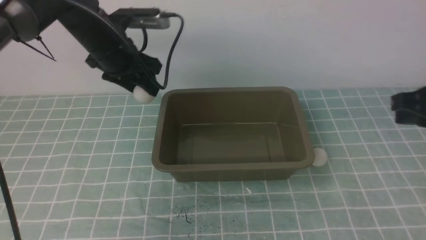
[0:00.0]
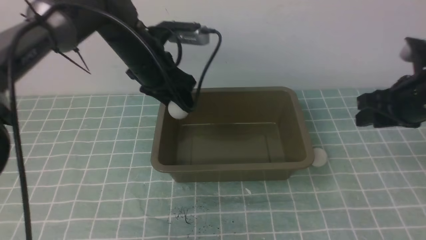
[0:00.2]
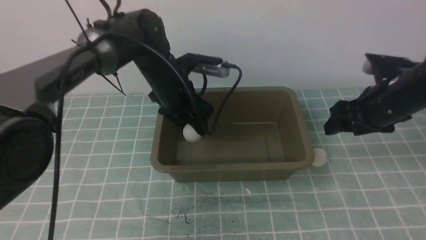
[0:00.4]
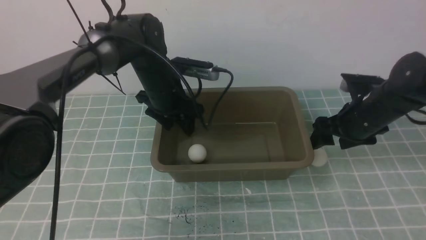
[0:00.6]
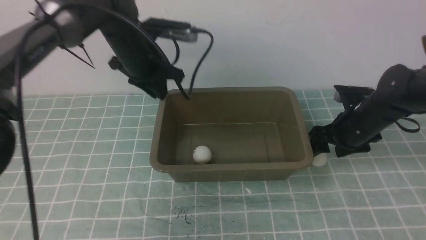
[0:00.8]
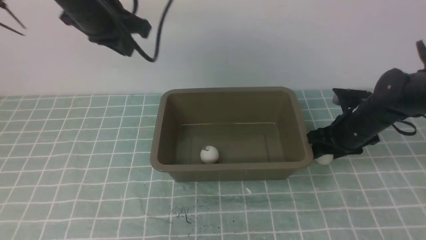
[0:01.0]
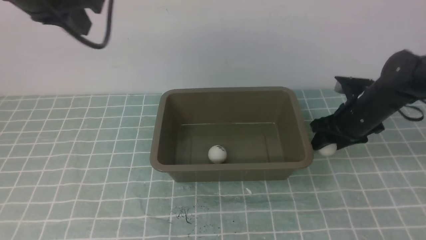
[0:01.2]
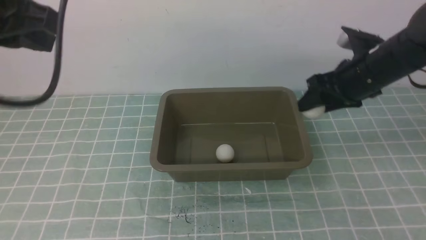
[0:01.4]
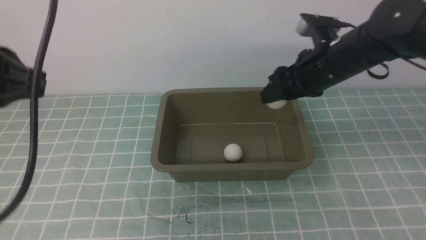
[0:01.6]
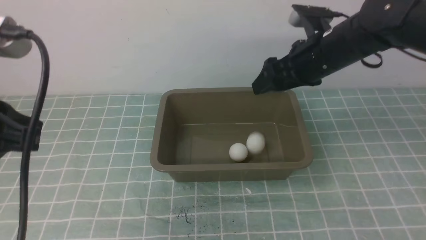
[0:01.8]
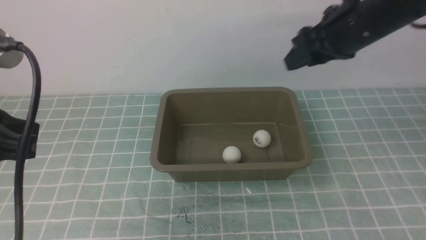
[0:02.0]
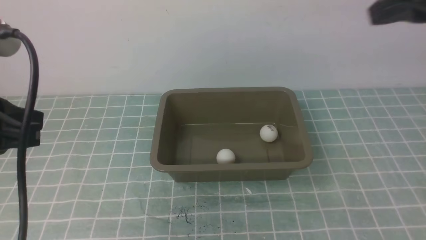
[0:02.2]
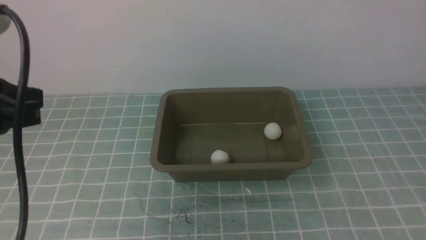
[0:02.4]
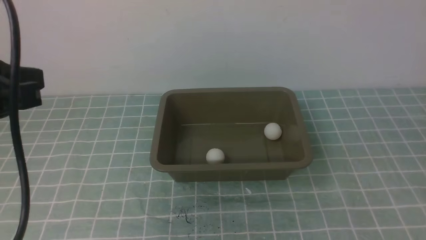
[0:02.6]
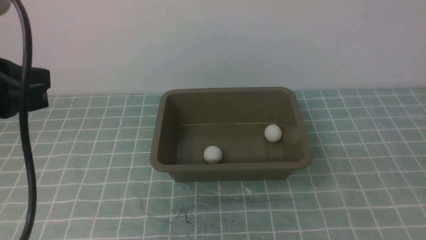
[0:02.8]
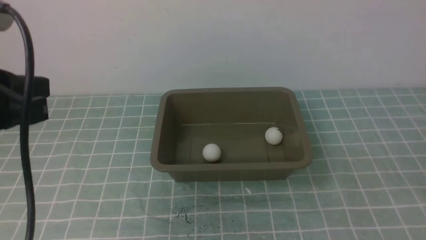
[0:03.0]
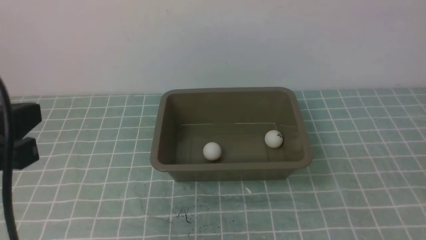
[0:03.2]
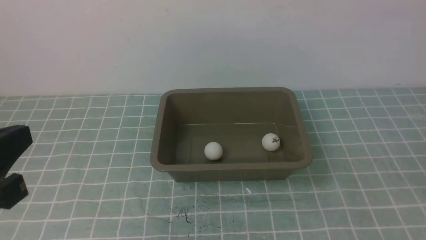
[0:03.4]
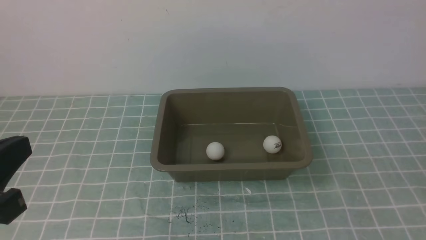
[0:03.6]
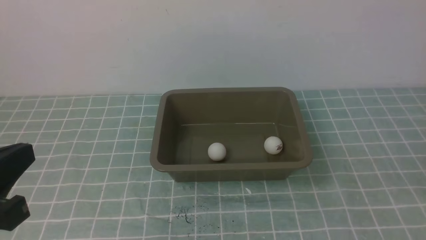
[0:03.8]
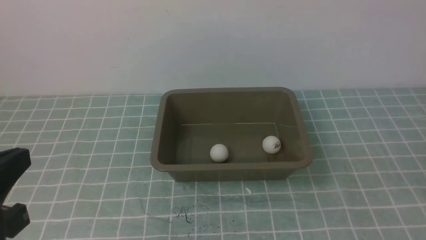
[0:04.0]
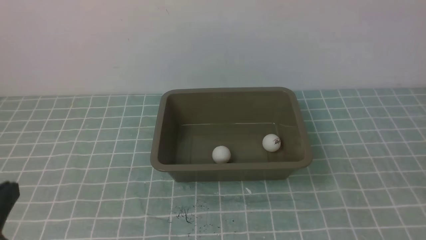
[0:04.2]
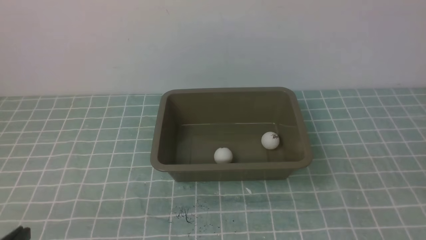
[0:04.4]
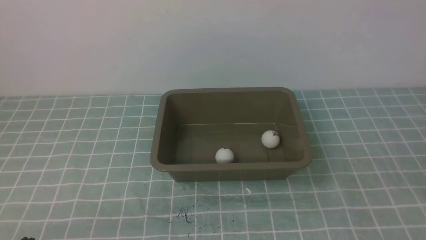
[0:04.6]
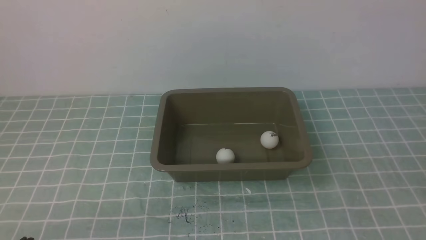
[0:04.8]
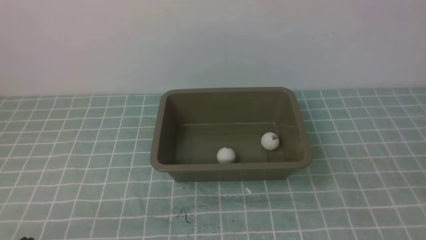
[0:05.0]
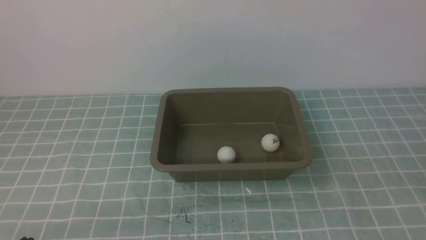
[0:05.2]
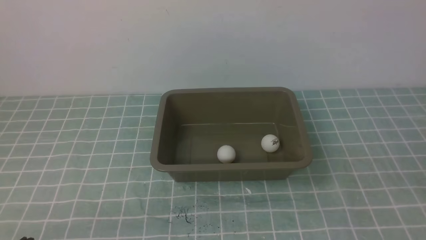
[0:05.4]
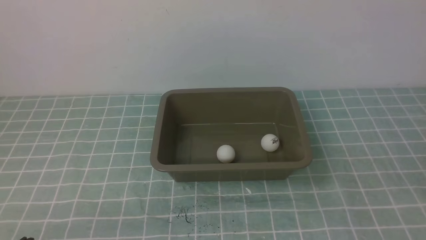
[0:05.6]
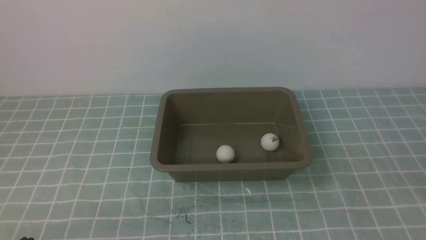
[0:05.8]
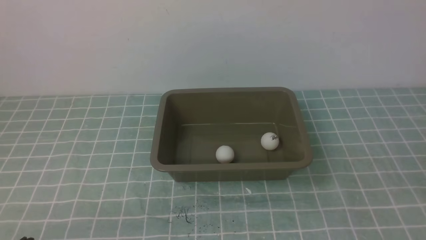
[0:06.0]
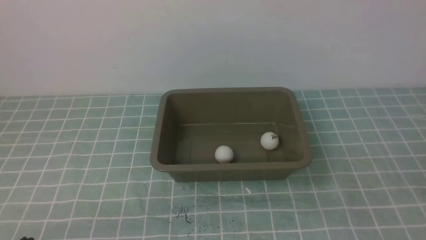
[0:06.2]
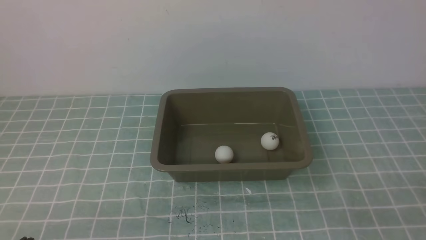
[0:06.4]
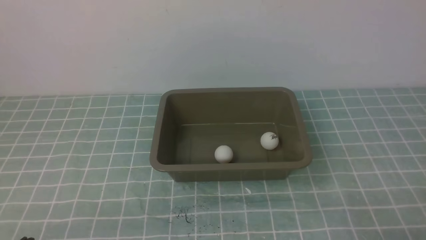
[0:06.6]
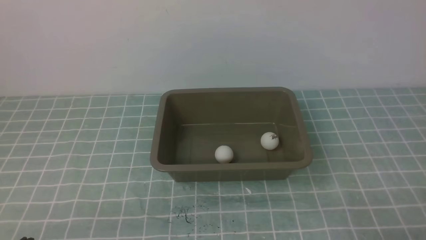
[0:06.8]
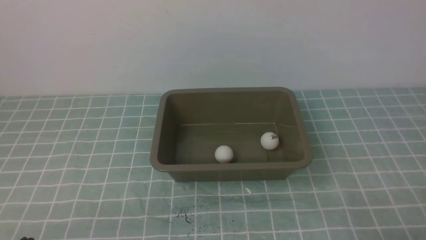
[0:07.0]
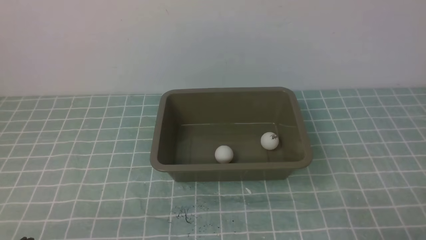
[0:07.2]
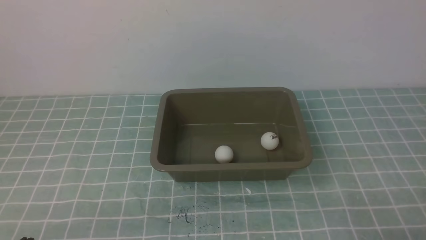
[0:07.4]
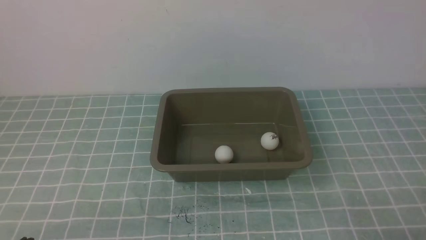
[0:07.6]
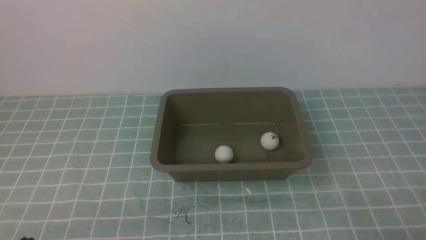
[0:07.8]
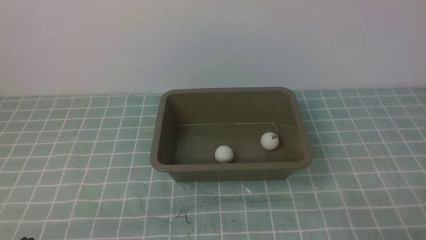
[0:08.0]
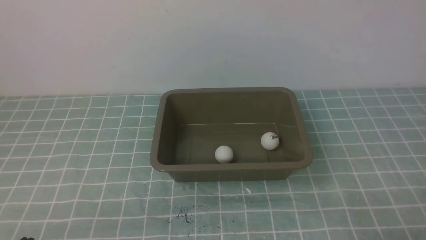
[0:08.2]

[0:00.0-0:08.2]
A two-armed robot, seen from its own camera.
Step, 0:00.0 to 0:00.4: use the left arm to put the table tennis ball into the box.
Step, 0:00.6 to 0:01.0: use the right arm to clamp the table tennis ball closest to it.
Step, 0:01.4 to 0:01.6: use the right arm to put the table tennis ball into the box.
0:00.0 to 0:01.6: The right gripper moves to the left and forward, approximately 15 cm, reaches some 15 cm downward, then returns, and opens; the left gripper moves backward and upward, roughly 30 cm, and closes up.
0:01.6 to 0:03.2: The right gripper goes roughly 35 cm backward, and closes its fingers. The left gripper moves backward and downward, approximately 10 cm.
0:03.2 to 0:05.0: The left gripper shifts some 20 cm downward and backward.
0:06.6 to 0:08.2: Neither gripper changes place.
